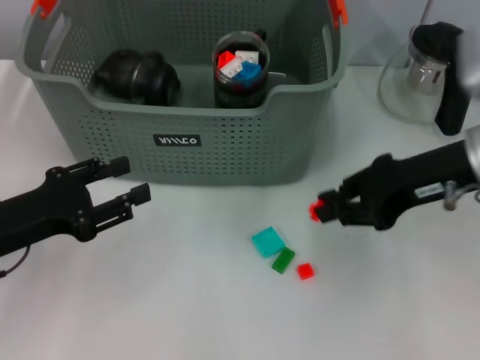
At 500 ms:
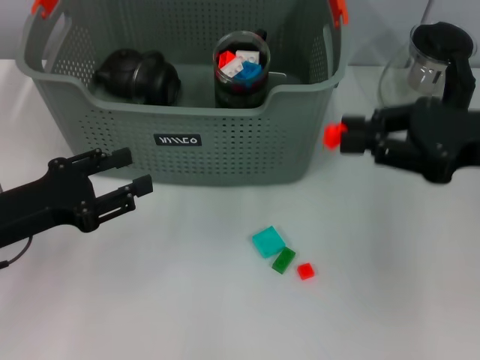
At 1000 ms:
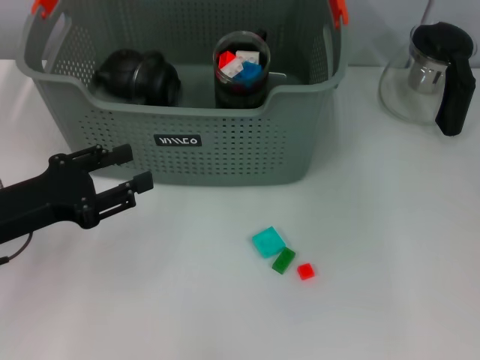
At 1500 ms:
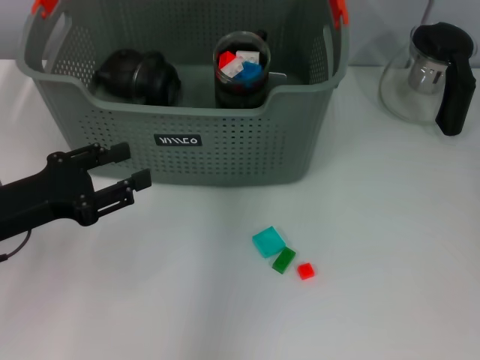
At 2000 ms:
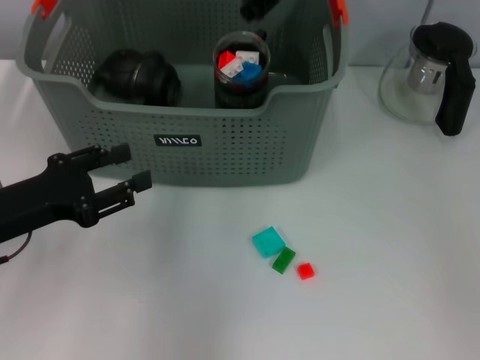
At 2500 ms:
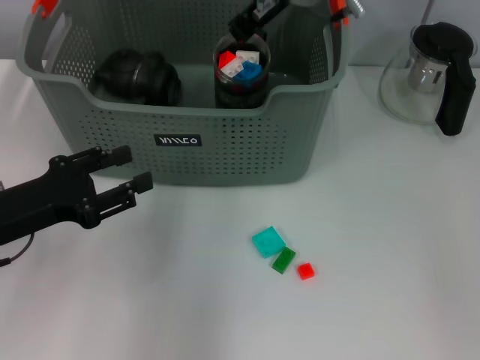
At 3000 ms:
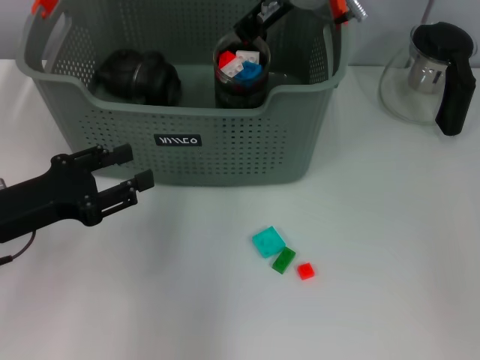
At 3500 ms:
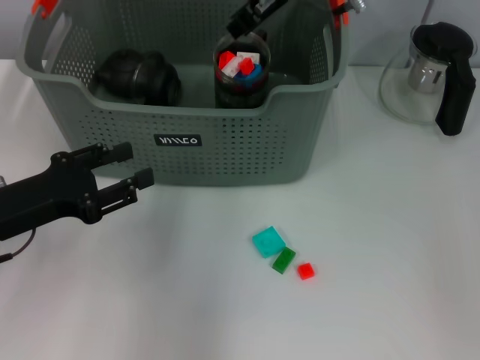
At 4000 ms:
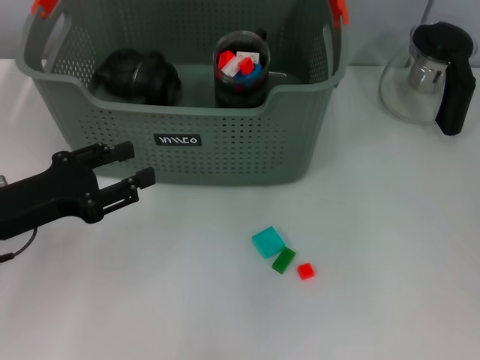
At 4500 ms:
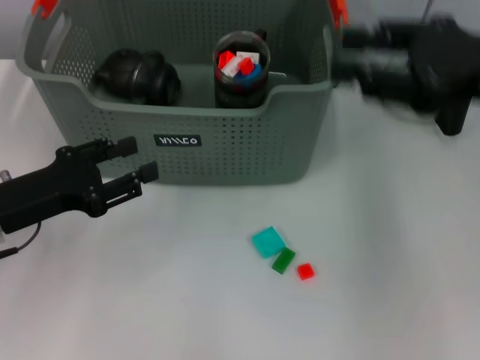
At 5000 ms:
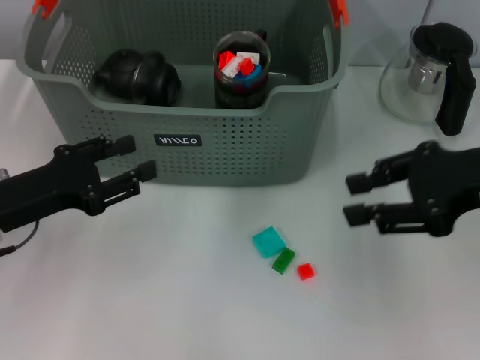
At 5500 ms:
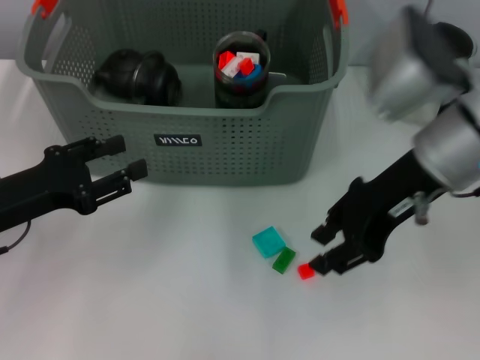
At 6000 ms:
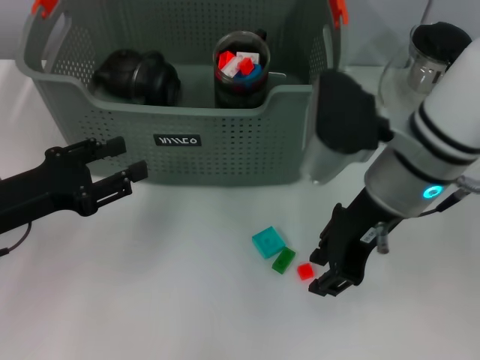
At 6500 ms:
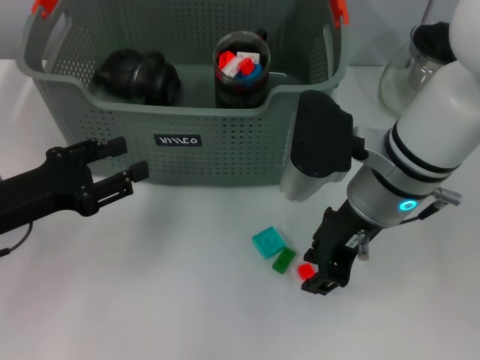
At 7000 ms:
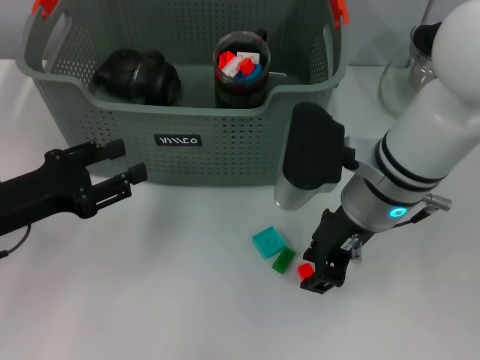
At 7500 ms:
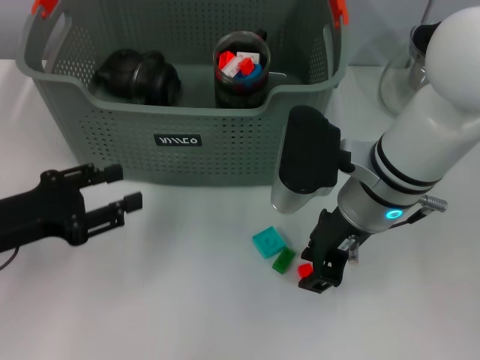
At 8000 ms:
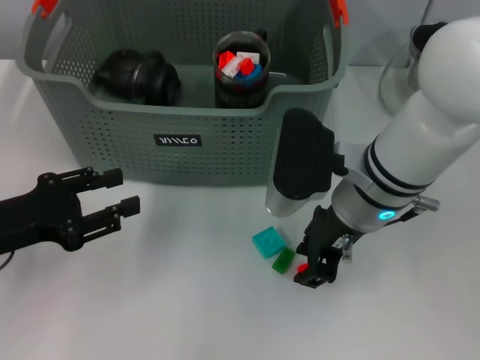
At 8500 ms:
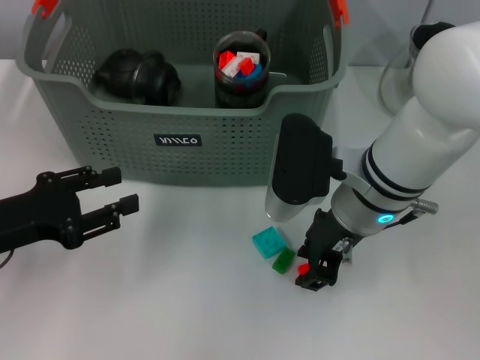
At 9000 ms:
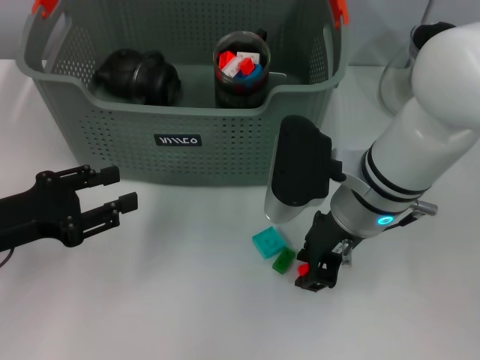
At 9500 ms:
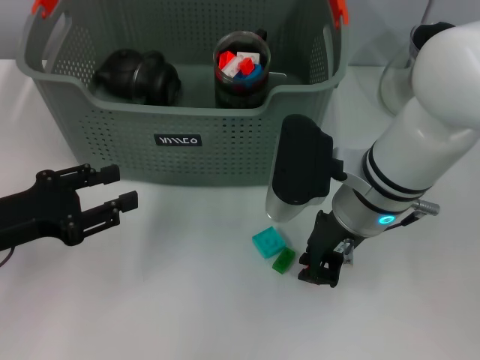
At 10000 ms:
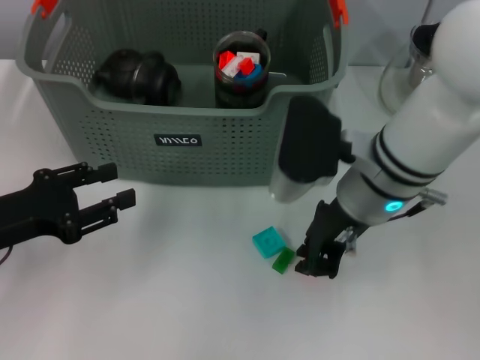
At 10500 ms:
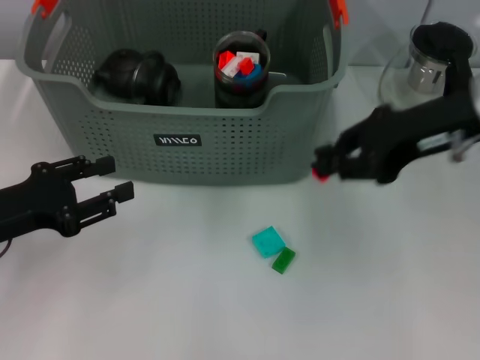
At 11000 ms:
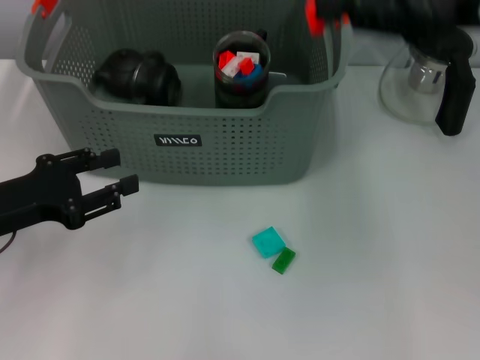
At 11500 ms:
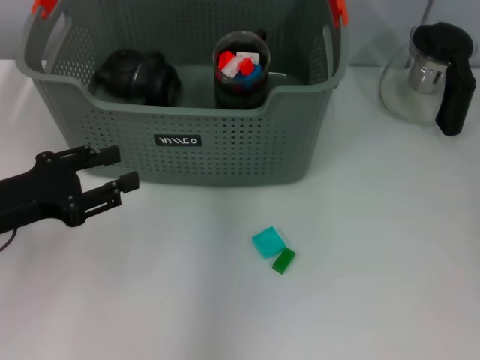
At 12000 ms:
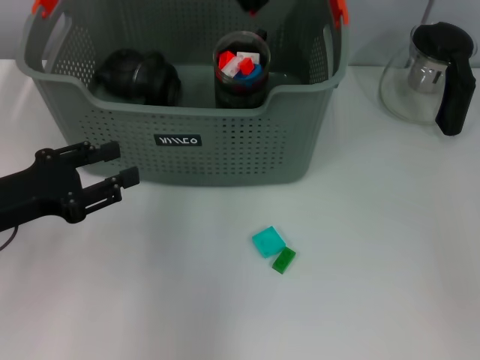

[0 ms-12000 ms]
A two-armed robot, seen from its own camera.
Task of the whole recording: pick up the teacup on the table and place it into the storage bin, pick up the block on the table and place it into the storage bin.
Step, 0 ms to 3000 ms: Place the orange block in the storage box with right gripper.
Step, 3500 ms to 9000 ms: Grasp the orange block with right gripper.
0 ms to 2000 ms: The right gripper shifts roughly 20 cm to the left, forward and upward.
2000 ms to 4000 ms: The right gripper is displaced to the right by some 5 cm.
4000 ms to 6000 ms: The right gripper goes some 15 cm downward and backward.
8000 ms to 10000 ms: The grippers make only small movements.
10000 ms to 12000 ms: The right gripper moves forward and upward, roughly 20 cm.

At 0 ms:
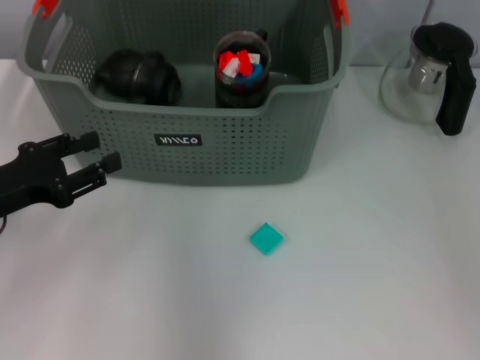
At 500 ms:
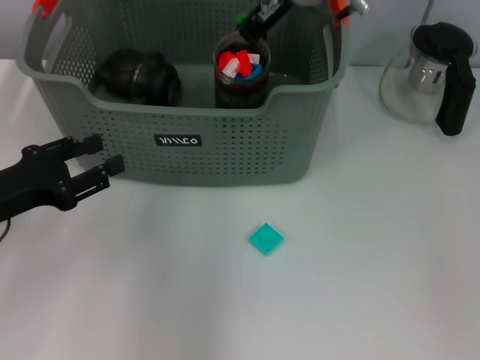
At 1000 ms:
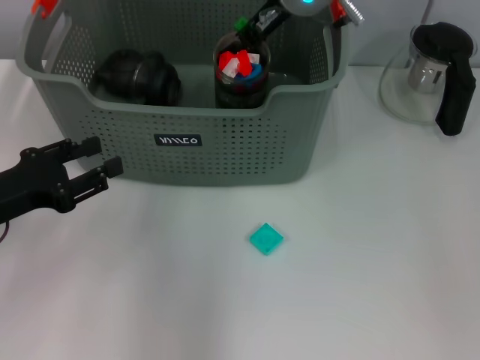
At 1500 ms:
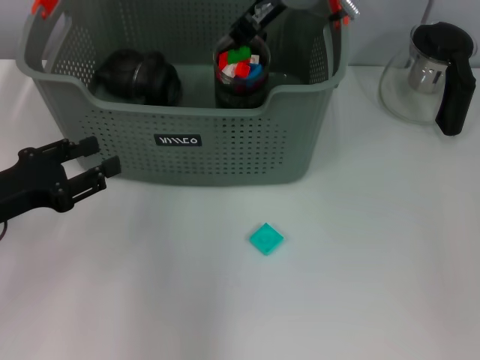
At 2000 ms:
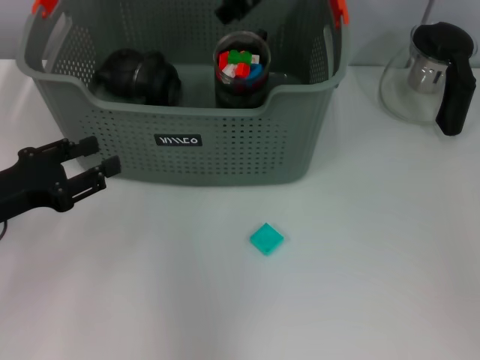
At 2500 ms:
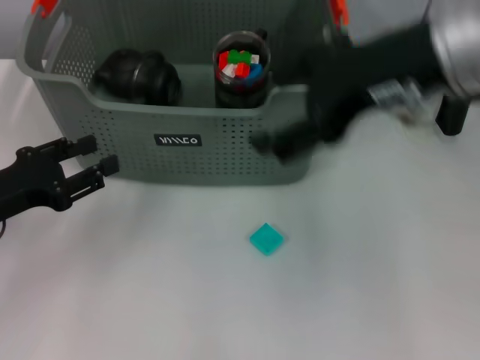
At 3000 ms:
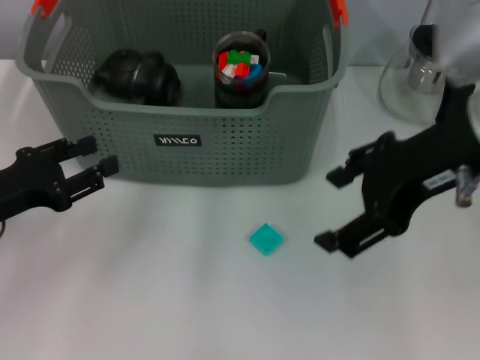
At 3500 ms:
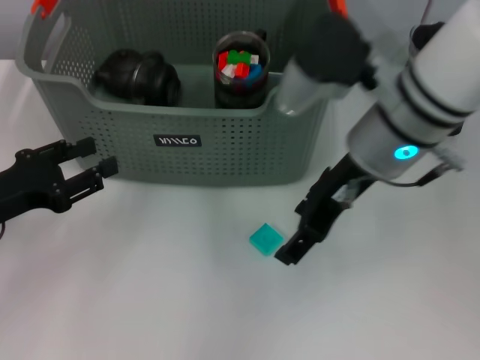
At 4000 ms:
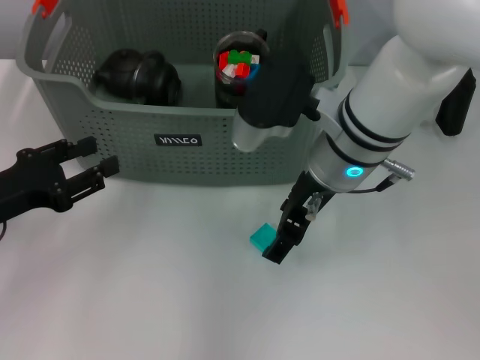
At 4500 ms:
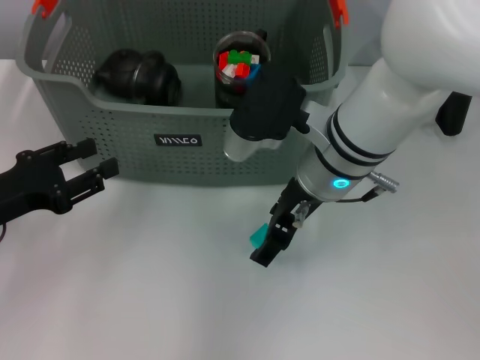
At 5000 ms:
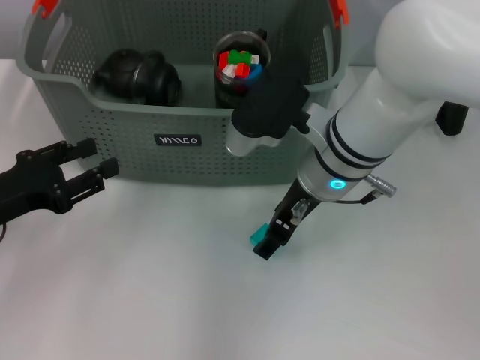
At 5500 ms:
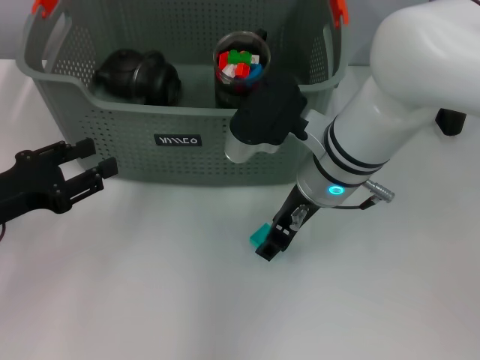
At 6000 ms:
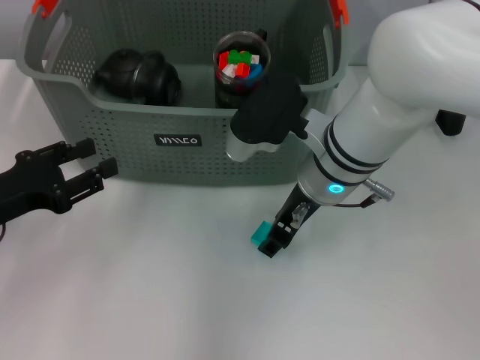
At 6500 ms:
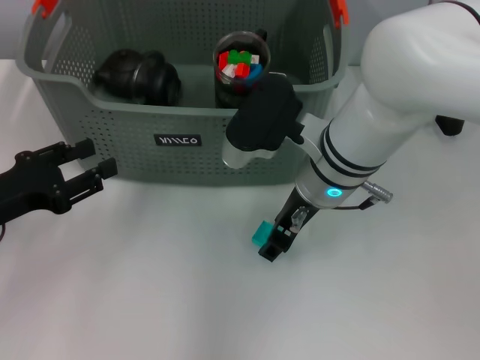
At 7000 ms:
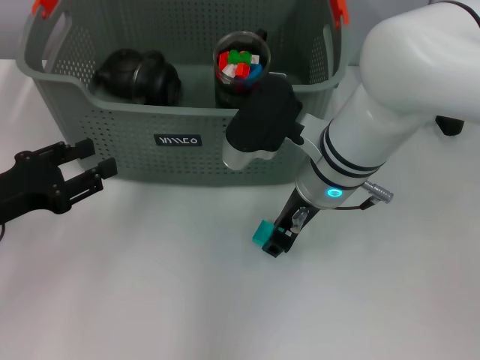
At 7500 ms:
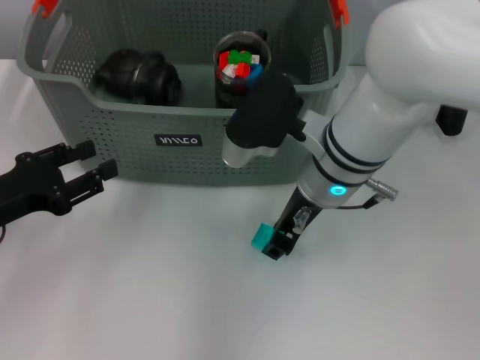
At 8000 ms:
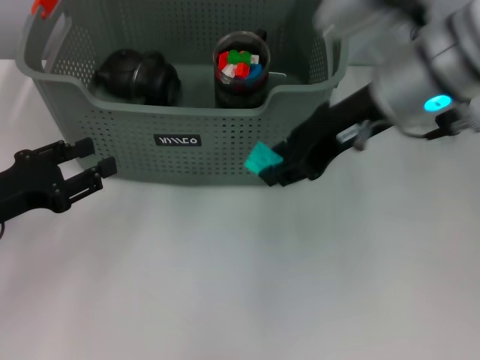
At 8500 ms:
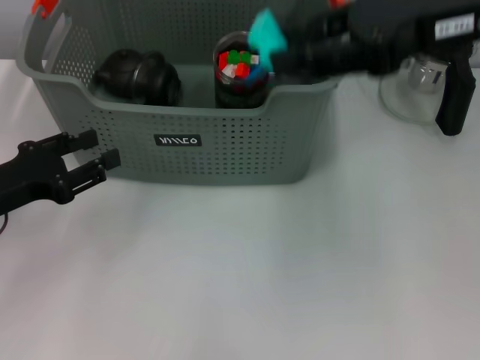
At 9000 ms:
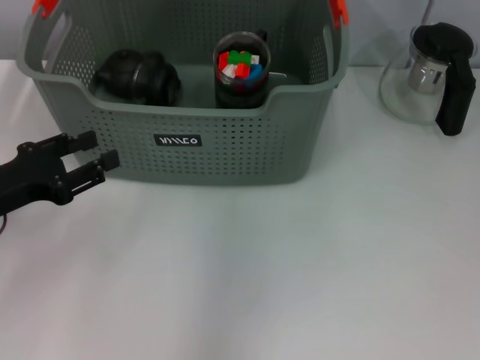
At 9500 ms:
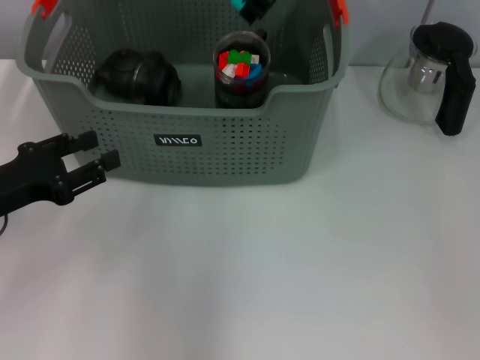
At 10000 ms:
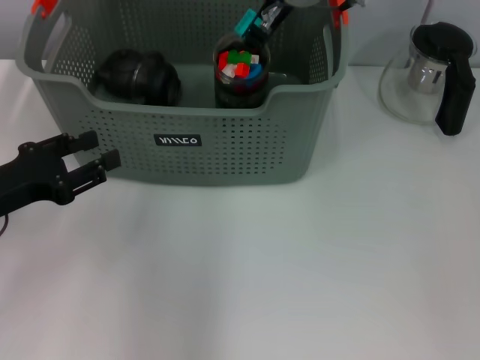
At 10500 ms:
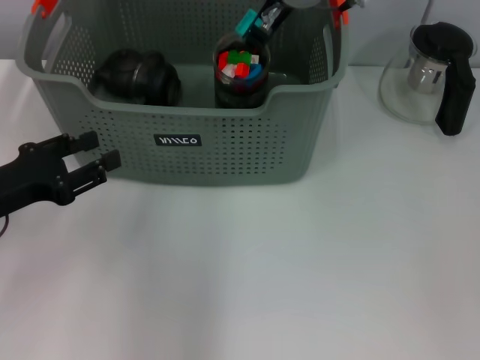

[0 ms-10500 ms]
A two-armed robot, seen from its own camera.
Task of the whole recording: pick up the teacup on the table and place it into the storage bin, pick up the block on the table and place it into the storage bin.
Step, 2000 ms to 7000 ms: Grasp the light blue block with right gripper.
2000 ms to 4000 ms: The right gripper travels downward and backward by approximately 15 cm, and opens its fingers.
4000 ms to 6500 ms: There are only small adjustments of the grippers.
6500 ms to 8500 ms: The right gripper travels upward and to the right by about 20 cm.
8500 ms to 10500 ms: The right gripper heads to the left and forward, covering approximately 20 cm.

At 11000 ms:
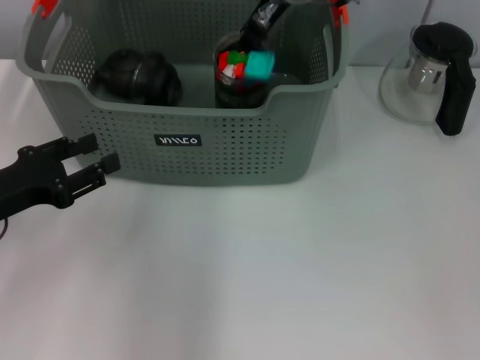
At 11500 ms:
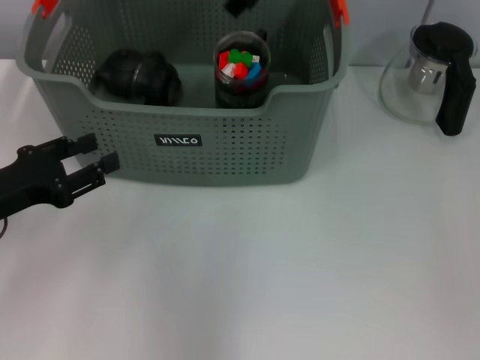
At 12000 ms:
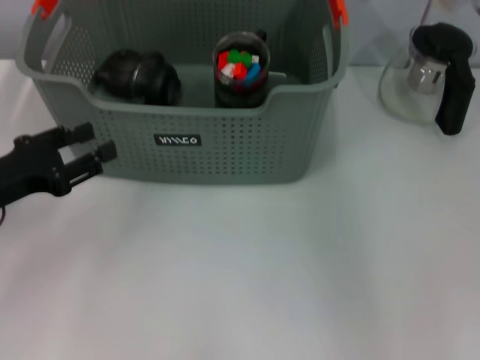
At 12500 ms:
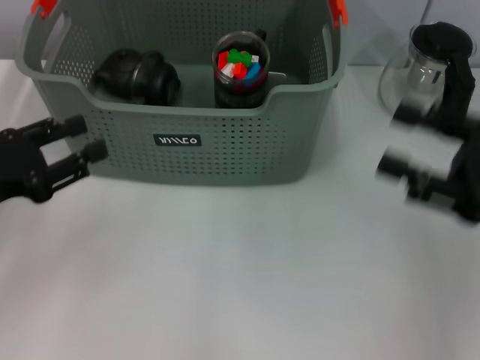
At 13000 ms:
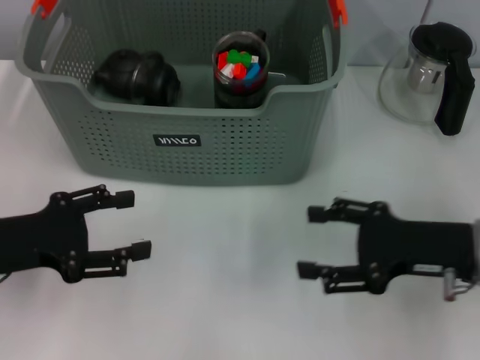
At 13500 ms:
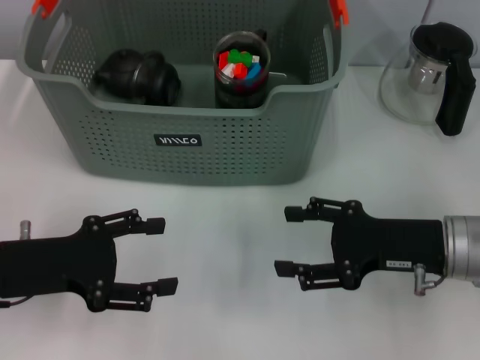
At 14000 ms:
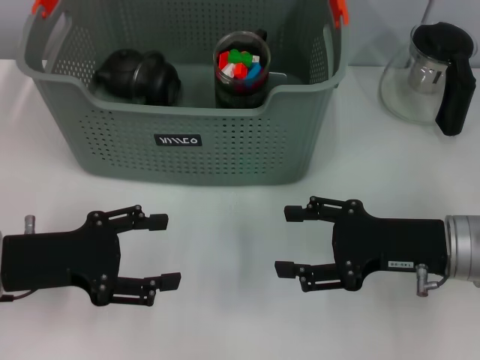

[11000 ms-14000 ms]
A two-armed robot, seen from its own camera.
Task of the whole recording: pick up the teacup on the table and place it into the storage bin, pick up the block on the table and place it into the storage bin.
11000 ms to 12500 ms: The right gripper goes about 35 cm to the right, backward and downward.
12500 ms to 14000 ms: The right gripper is displaced downward and to the left by approximately 10 cm, while the left gripper changes place by some 5 cm.
